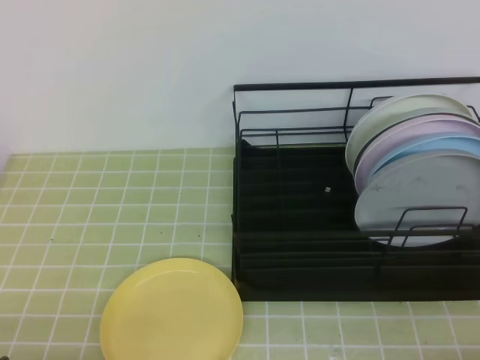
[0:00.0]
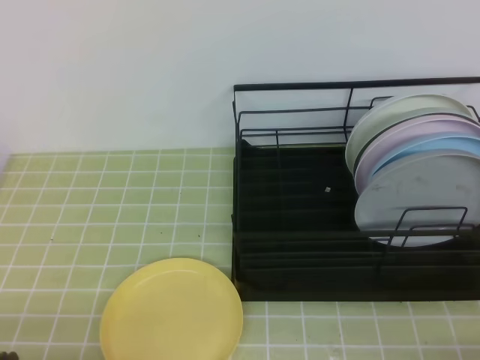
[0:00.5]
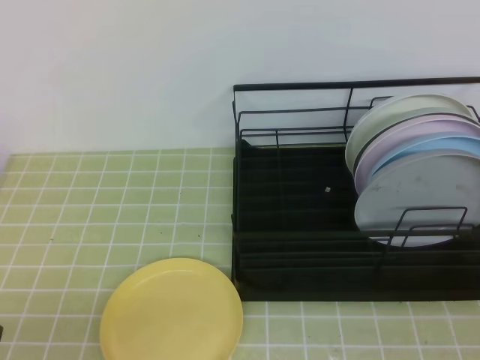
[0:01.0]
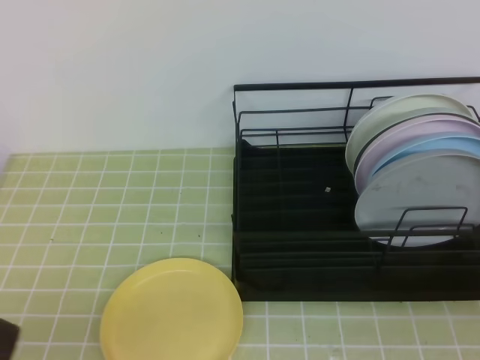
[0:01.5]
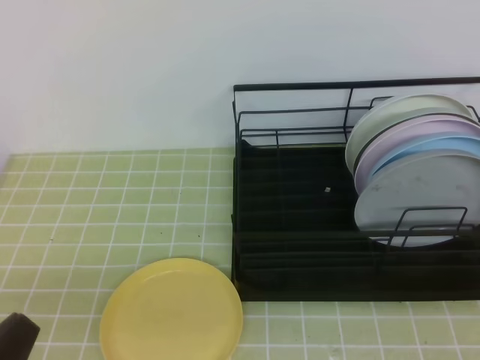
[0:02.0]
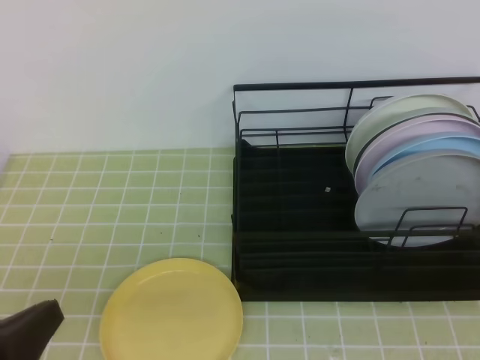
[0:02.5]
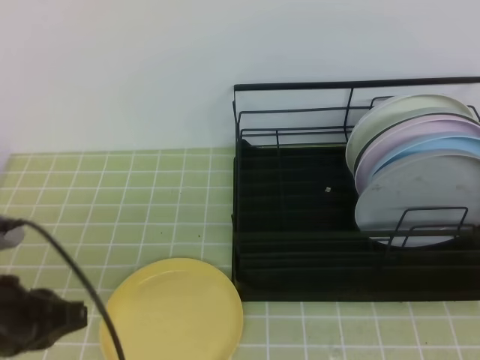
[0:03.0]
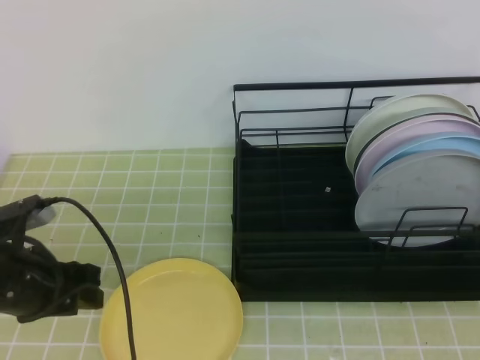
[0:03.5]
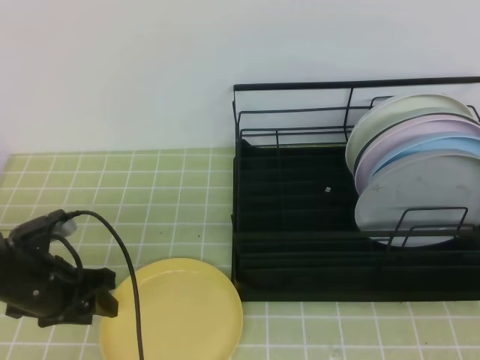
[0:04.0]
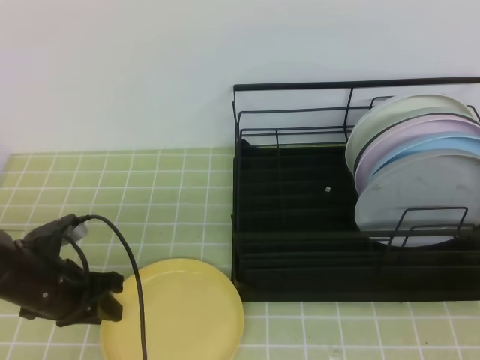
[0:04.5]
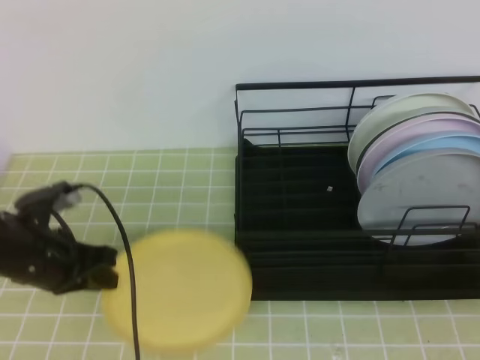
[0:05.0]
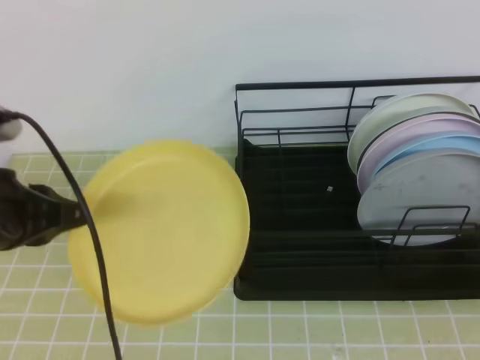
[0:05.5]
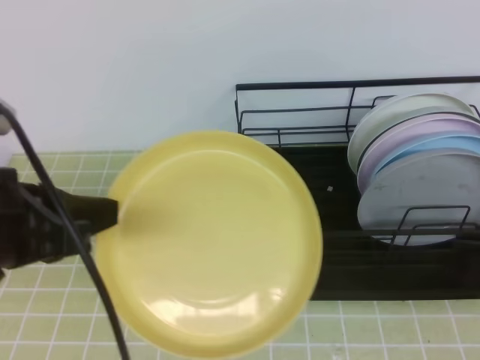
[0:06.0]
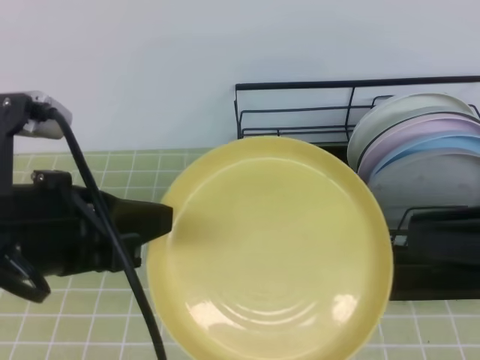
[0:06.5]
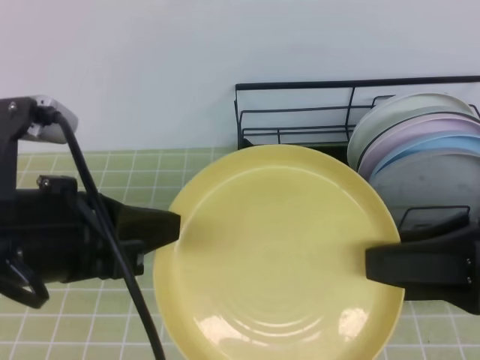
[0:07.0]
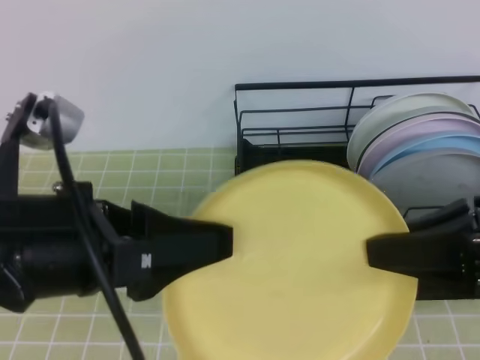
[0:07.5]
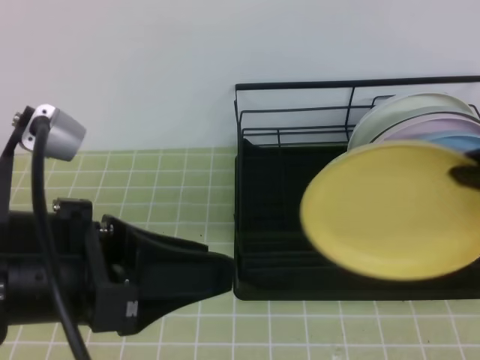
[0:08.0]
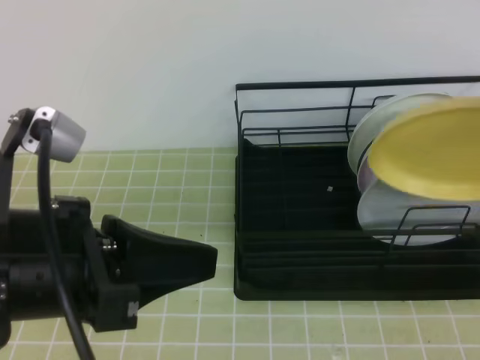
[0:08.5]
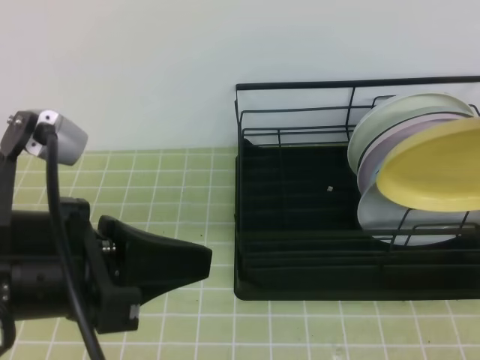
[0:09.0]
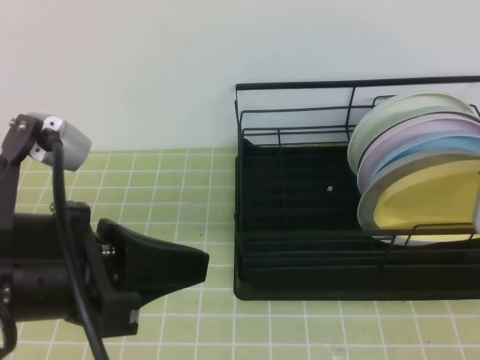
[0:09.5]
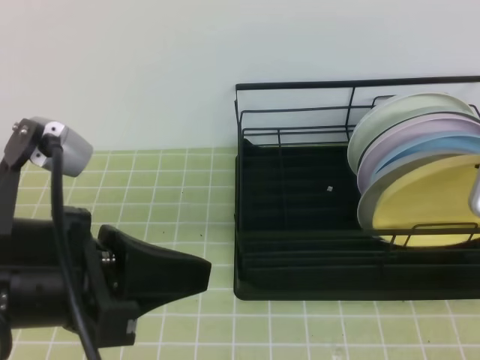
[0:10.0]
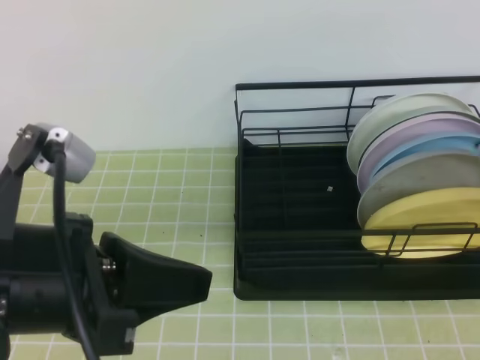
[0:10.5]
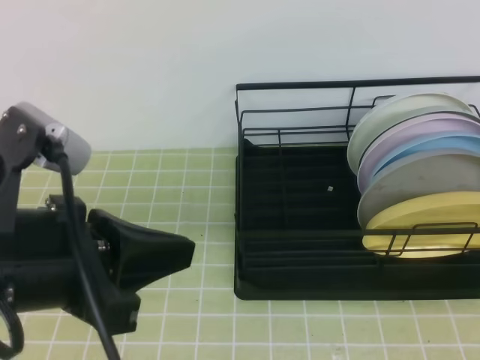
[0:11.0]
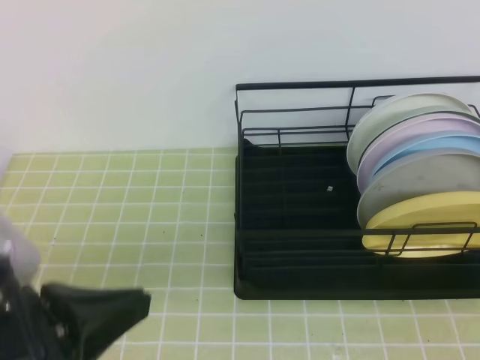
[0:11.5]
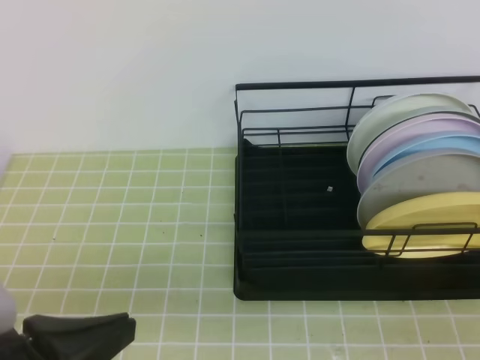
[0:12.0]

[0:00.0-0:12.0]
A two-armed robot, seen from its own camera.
Step, 0:00.0 to 0:03.5: Left grab the yellow plate.
Step, 0:04.0 to 0:06.0: Right receive the plate.
Step, 0:06.5 to 0:08.5: Right place it at the front of the shelf.
0:00.0 to 0:02.0: The left gripper shifts some 5 cm upward.
0:02.0 to 0:04.0: The left gripper goes about 25 cm forward, and opens up.
0:04.0 to 0:06.0: The right gripper opens up; the left gripper is displaced upward and backward by some 20 cm, and closes its fingers.
0:06.0 to 0:08.0: The right gripper is displaced forward by approximately 10 cm, and closes up, while the left gripper heads to the right, covering approximately 5 cm, and opens up.
0:08.0 to 0:10.0: The left gripper closes its fingers. The right gripper changes place by some 5 cm, and opens up.
0:10.0 to 0:12.0: The left gripper is displaced downward and backward by some 10 cm. The right gripper moves backward, about 20 cm, and closes its fingers.

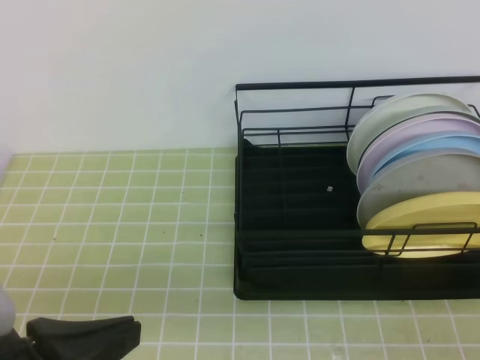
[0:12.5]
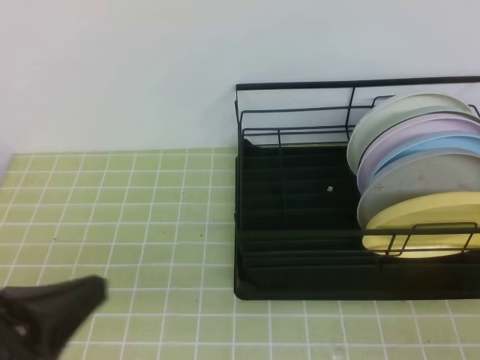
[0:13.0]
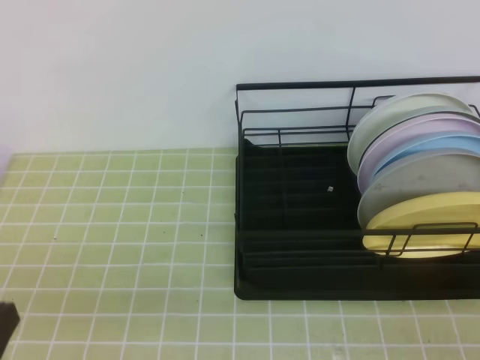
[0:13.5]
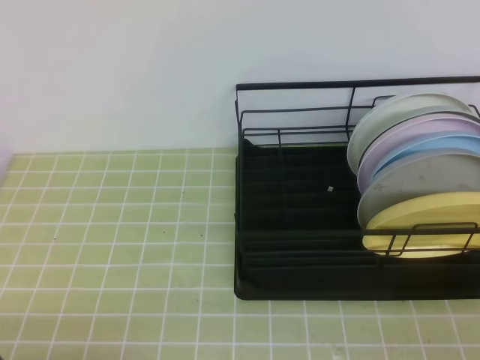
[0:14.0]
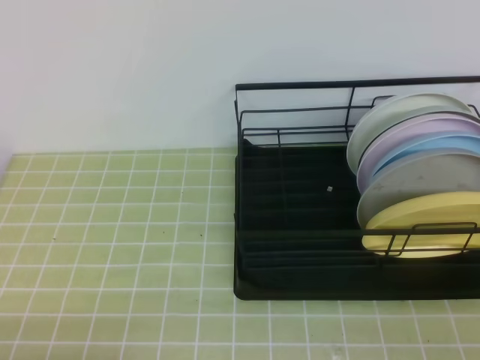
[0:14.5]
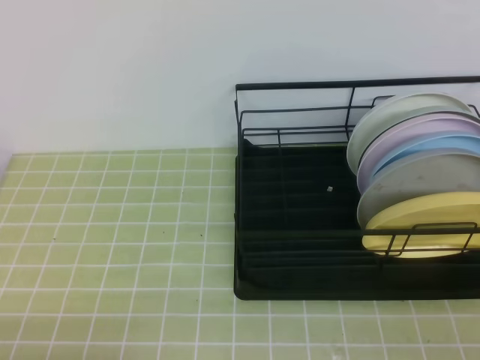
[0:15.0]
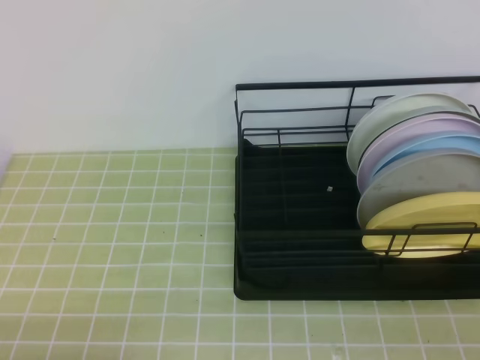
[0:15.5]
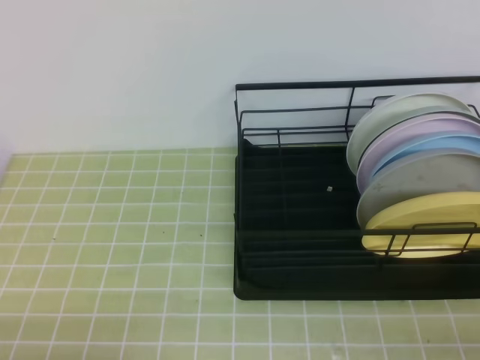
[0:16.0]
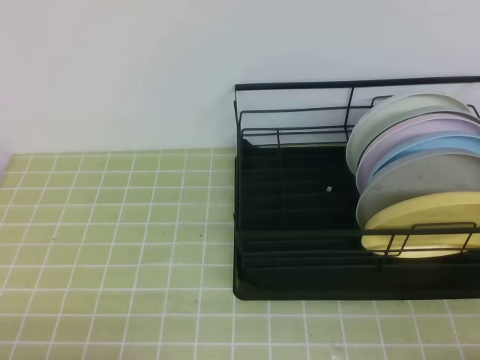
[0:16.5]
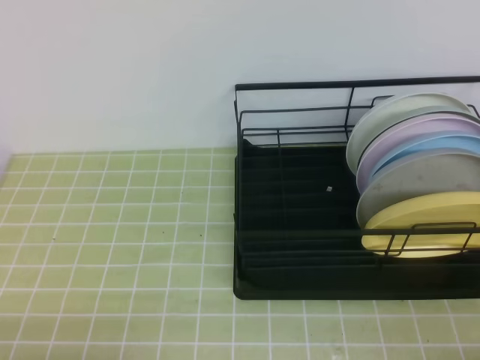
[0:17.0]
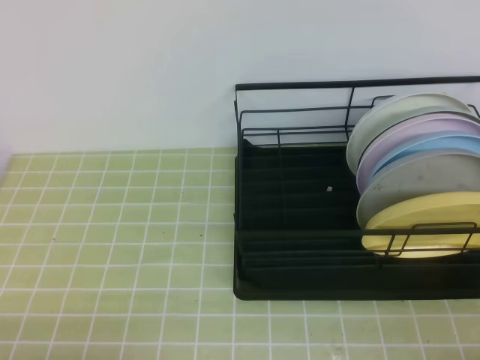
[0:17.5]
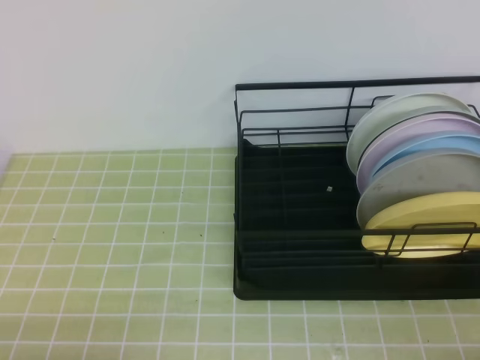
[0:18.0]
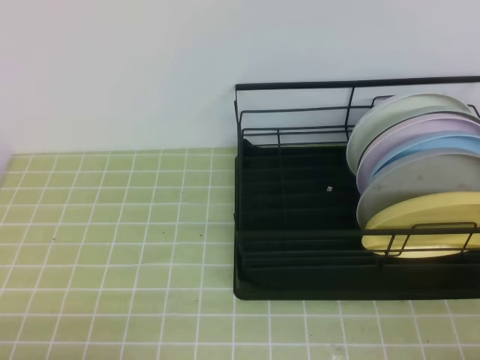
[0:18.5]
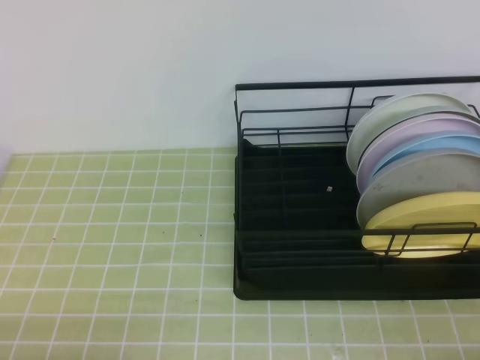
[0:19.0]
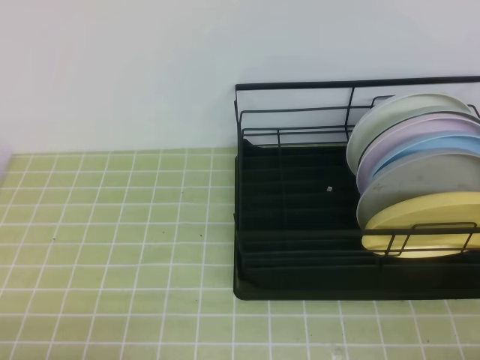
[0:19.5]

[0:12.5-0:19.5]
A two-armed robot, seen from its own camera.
0:12.5 to 0:14.5: The left gripper goes approximately 15 cm downward and to the left.
0:17.5 to 0:19.5: The two grippers keep their place.
